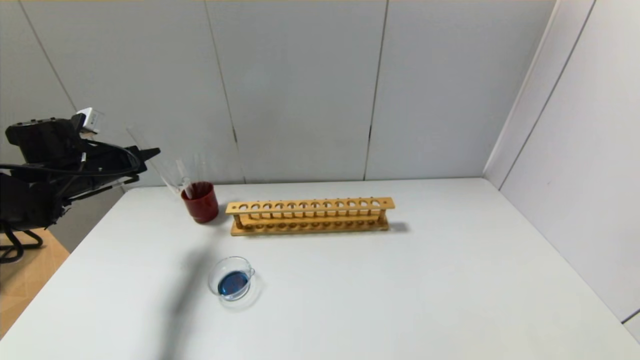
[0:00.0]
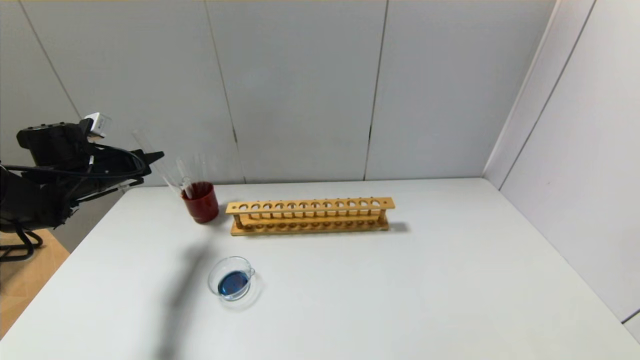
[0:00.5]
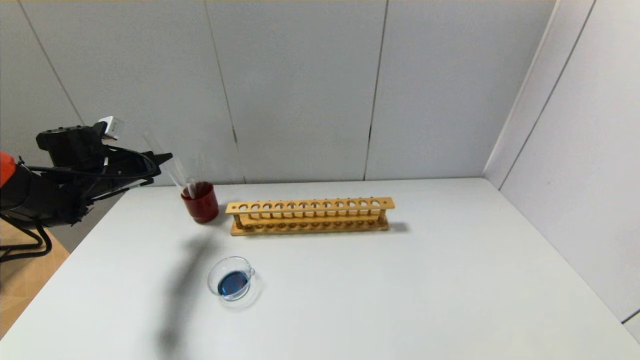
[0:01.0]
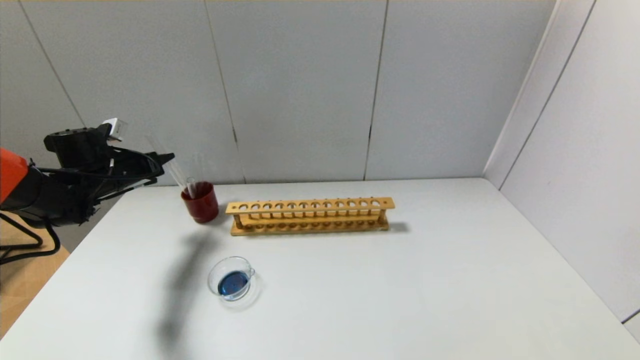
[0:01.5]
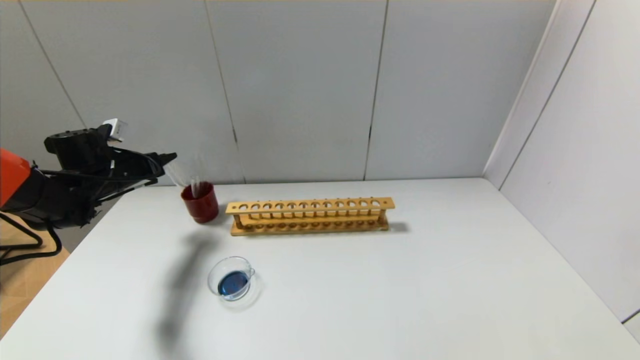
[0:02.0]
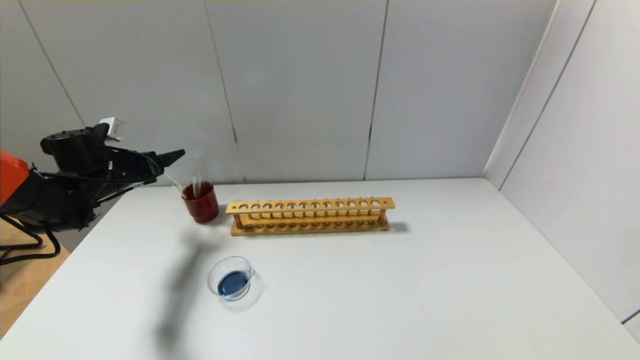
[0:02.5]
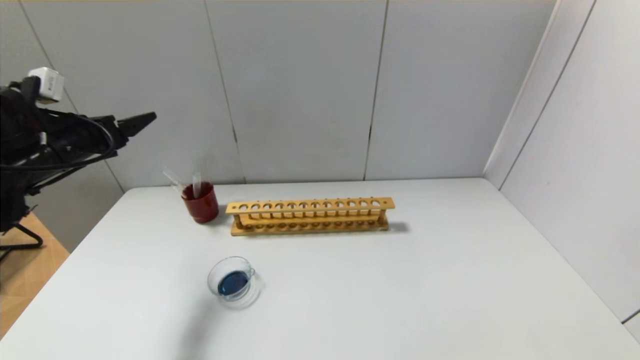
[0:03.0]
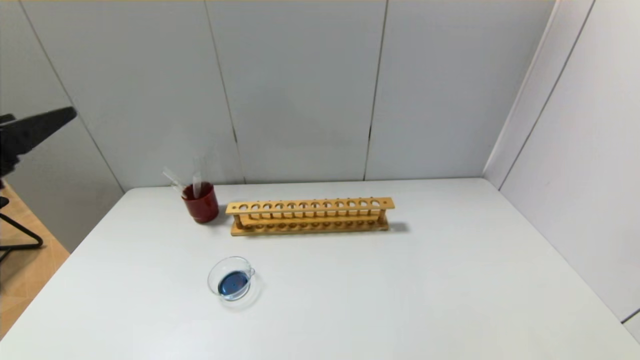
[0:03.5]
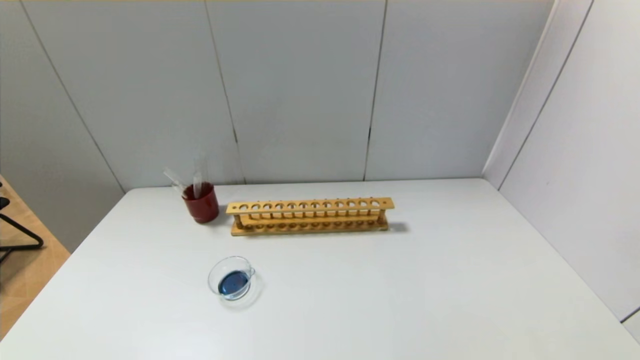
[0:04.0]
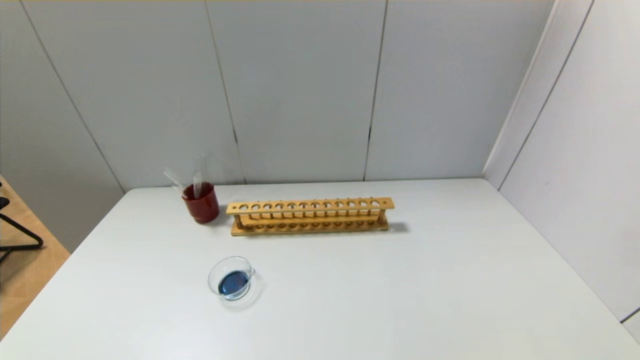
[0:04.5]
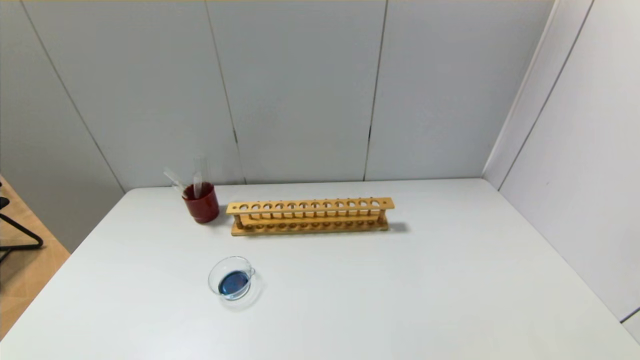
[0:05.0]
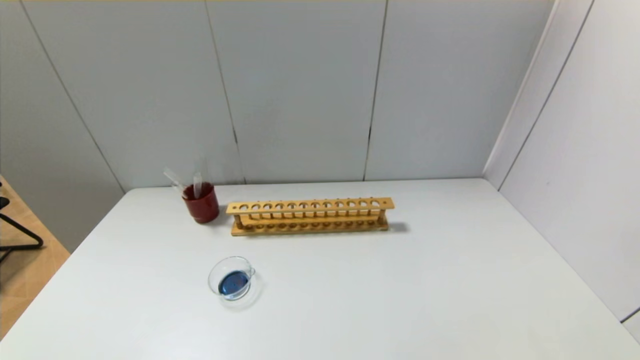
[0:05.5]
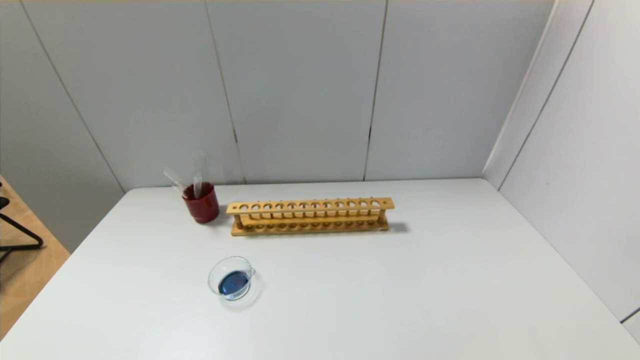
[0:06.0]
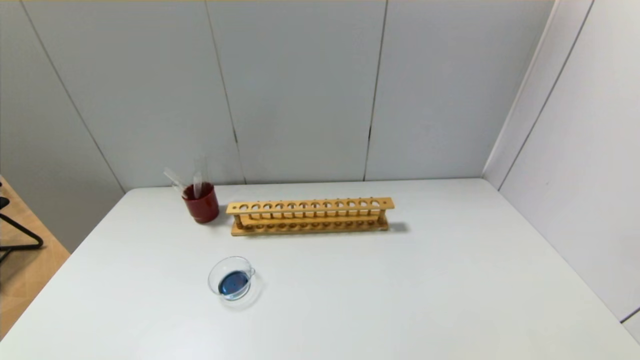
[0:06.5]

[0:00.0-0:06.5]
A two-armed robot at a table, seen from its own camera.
Step, 0.0 to 2.0 s: Place the test tube into the brown cup with the left gripper.
0.0 to 2.0 s: The left gripper moves approximately 5 cm.
2.0 to 4.5 s: The left gripper travels backward by approximately 50 cm, and opens up.

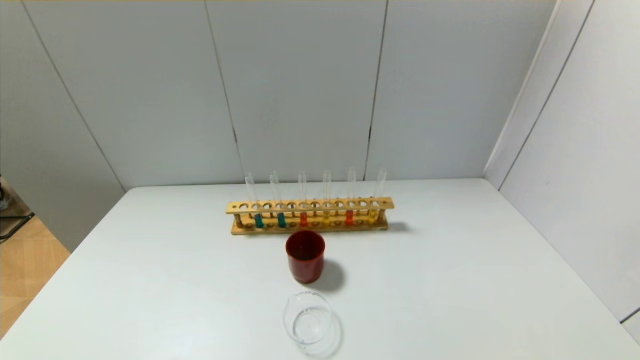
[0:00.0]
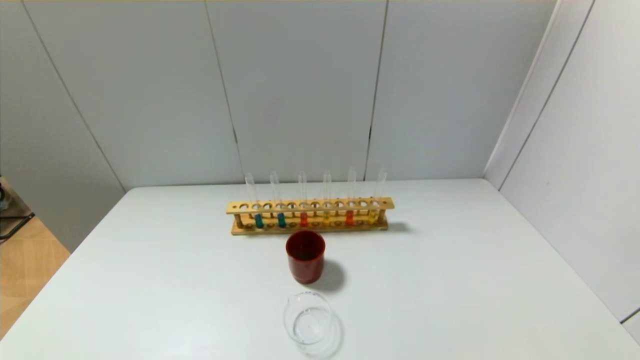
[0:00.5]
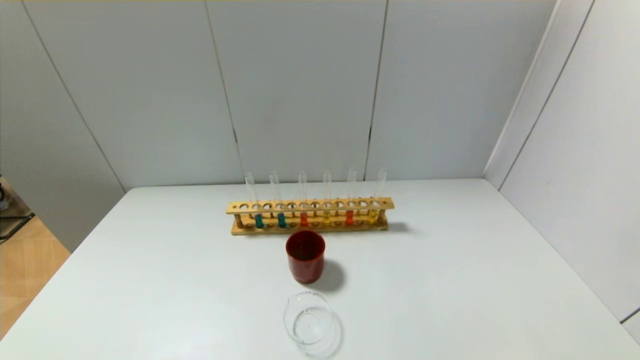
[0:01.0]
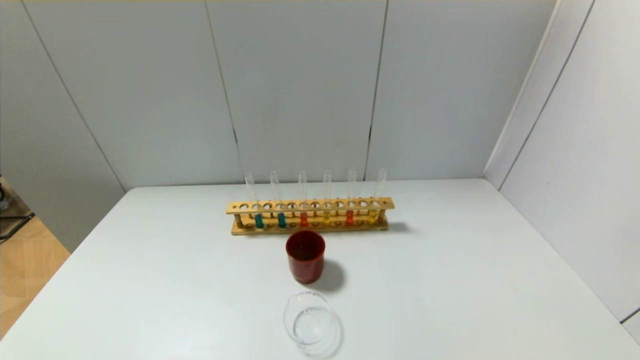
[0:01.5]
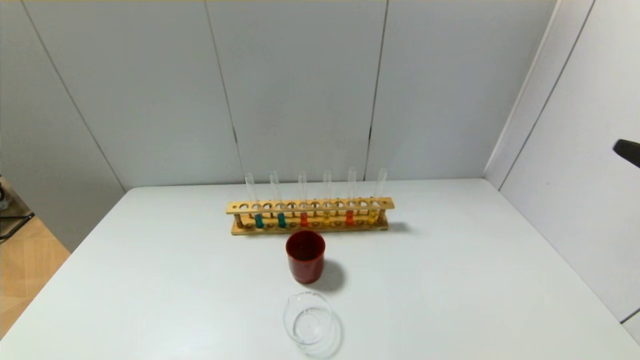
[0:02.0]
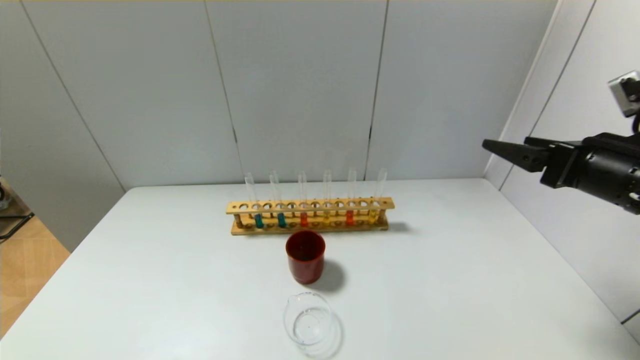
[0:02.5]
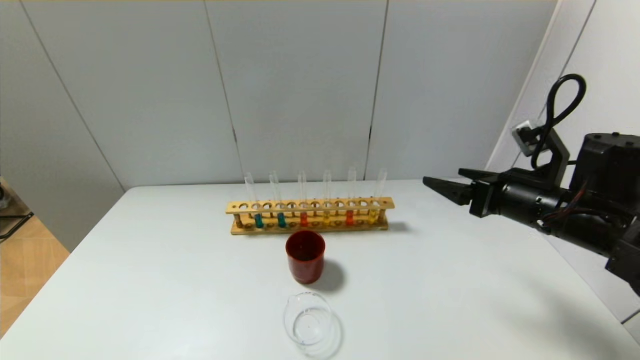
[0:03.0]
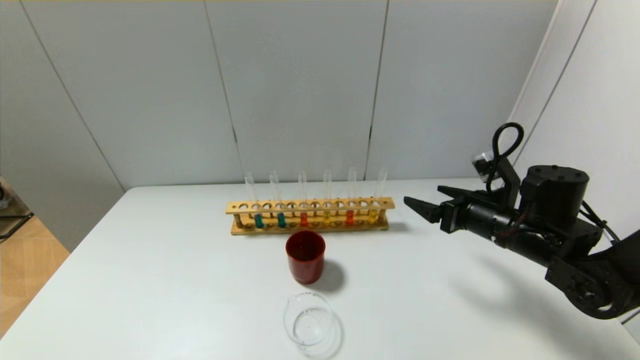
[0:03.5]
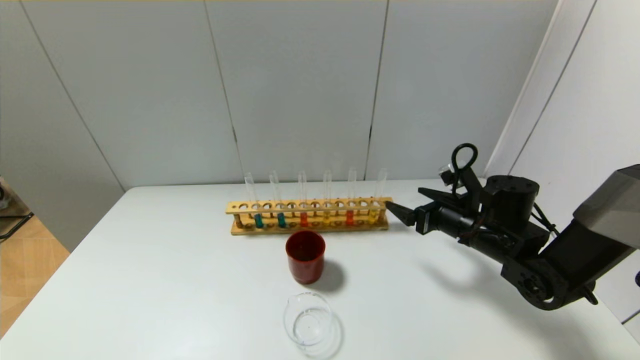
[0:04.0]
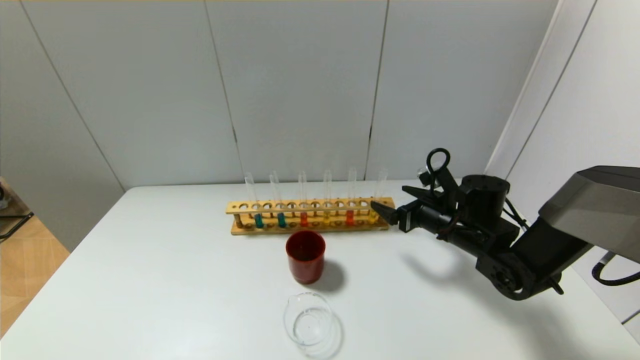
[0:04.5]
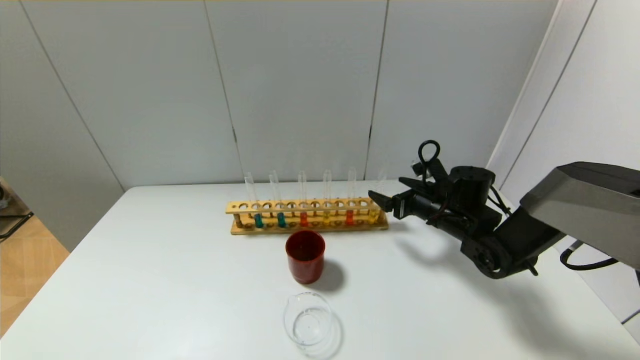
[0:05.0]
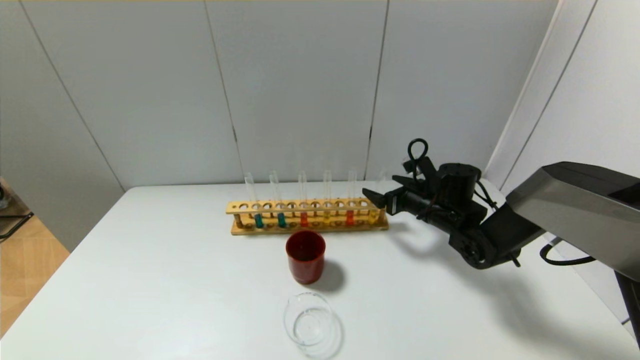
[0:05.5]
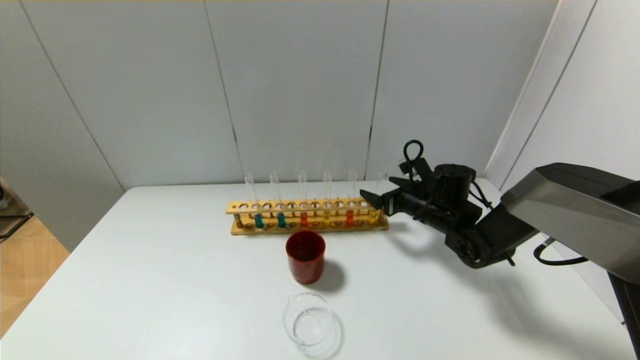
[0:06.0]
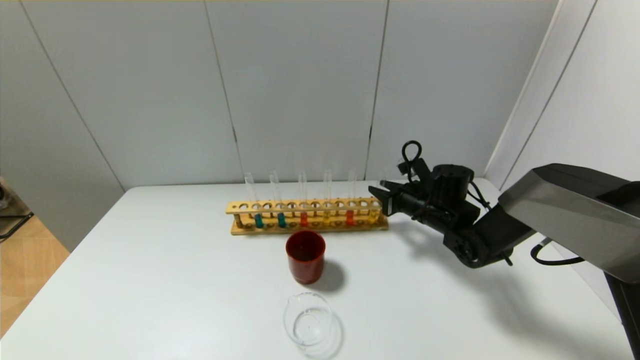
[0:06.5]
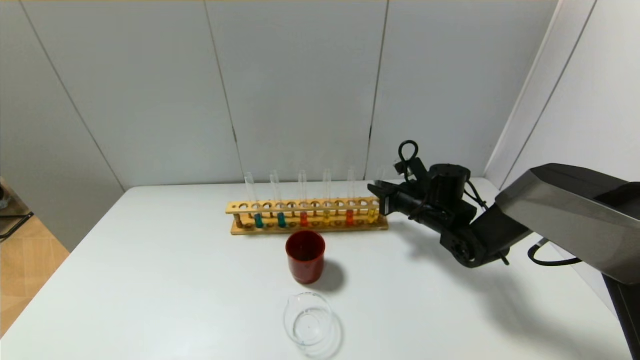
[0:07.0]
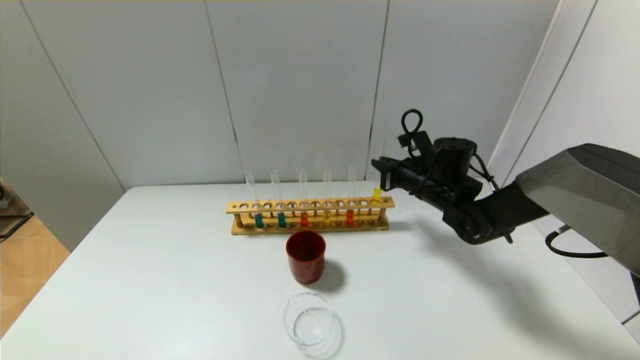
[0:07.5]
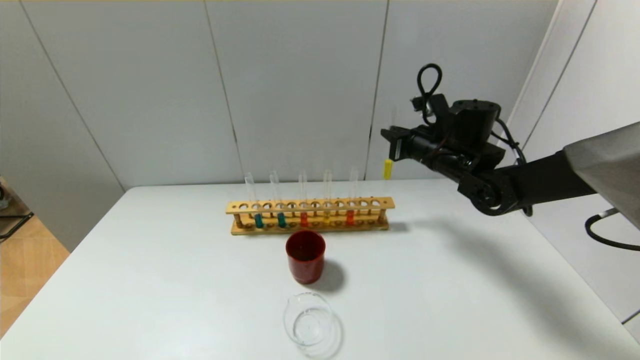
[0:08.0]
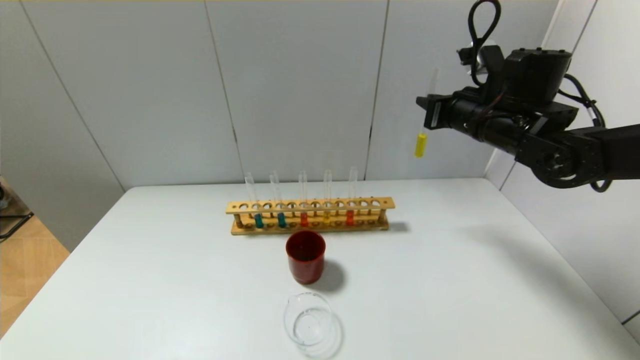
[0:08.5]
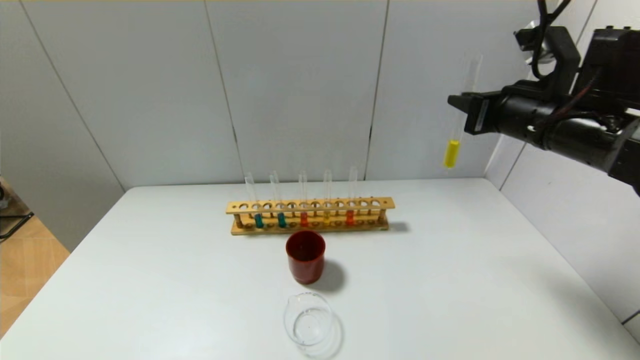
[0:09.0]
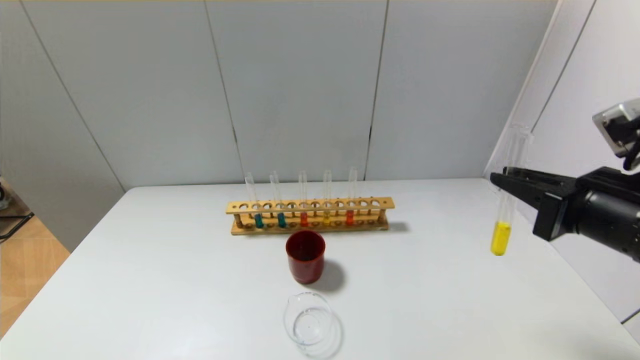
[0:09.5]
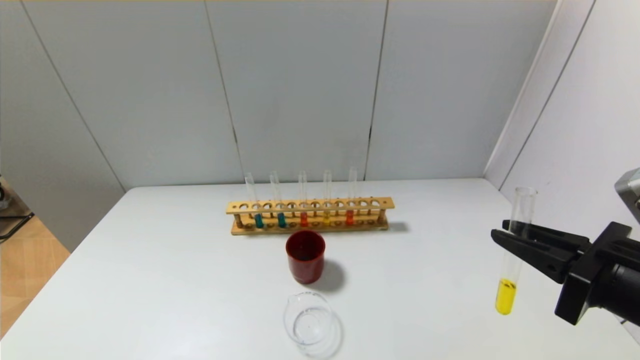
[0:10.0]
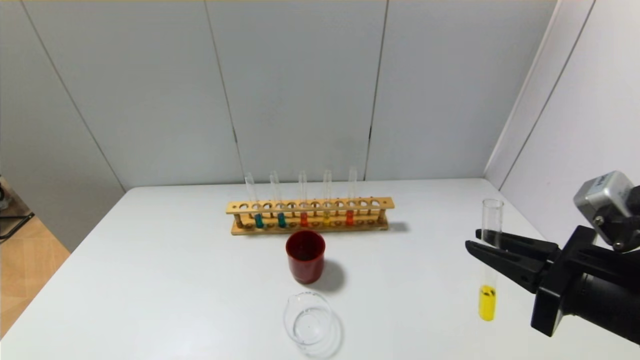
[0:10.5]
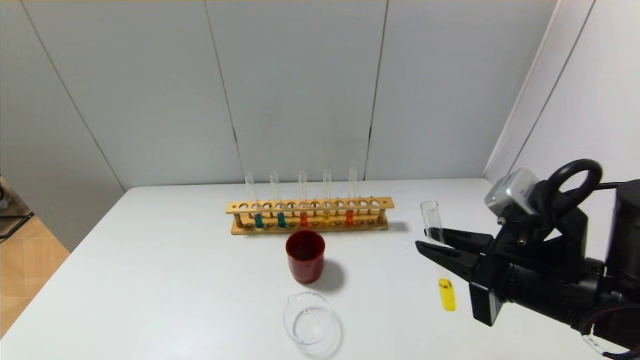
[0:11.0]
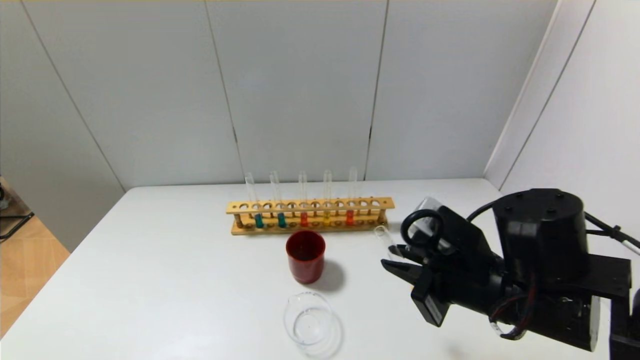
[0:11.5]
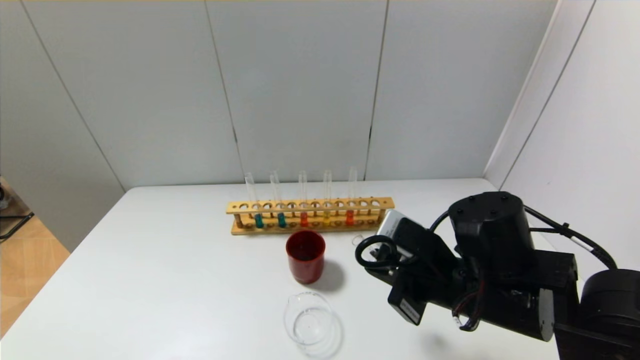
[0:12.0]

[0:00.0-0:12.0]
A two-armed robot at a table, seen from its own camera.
Step, 0.0 to 6.5 s: Grasp the yellow reagent with the right gripper.
2.0 to 4.0 s: The right gripper heads forward, downward and to the left, covering some 30 cm.
4.0 to 6.0 s: The right gripper goes roughly 10 cm forward.
6.0 to 8.0 s: The right gripper shifts about 10 cm upward, and closes.
8.0 to 10.0 s: The right gripper moves backward, roughly 30 cm.
10.0 to 12.0 s: The right gripper travels to the left, forward and downward by about 15 cm.

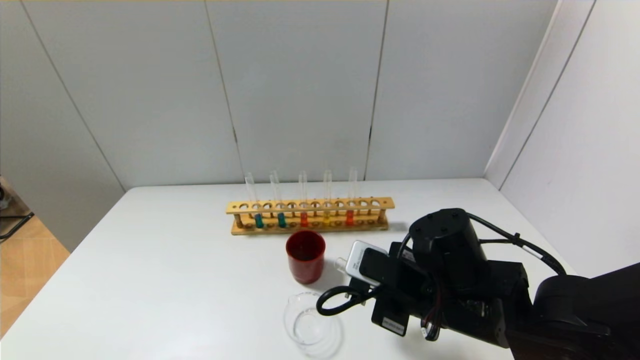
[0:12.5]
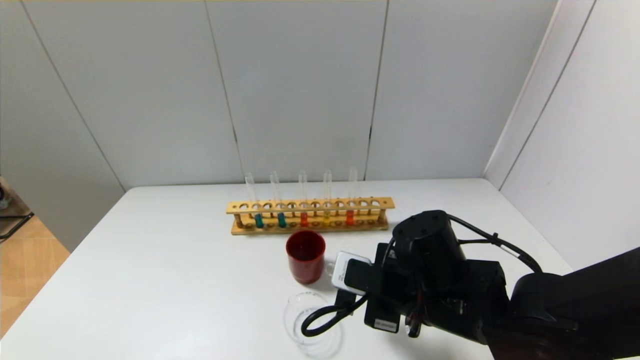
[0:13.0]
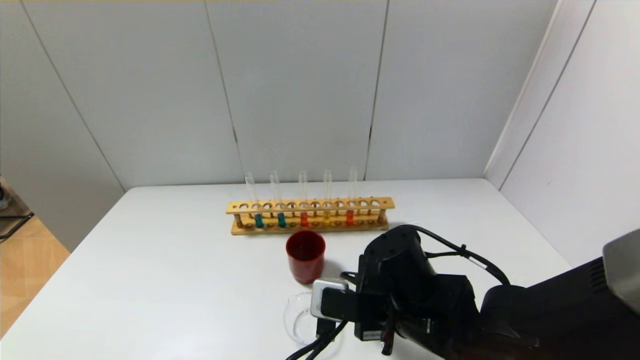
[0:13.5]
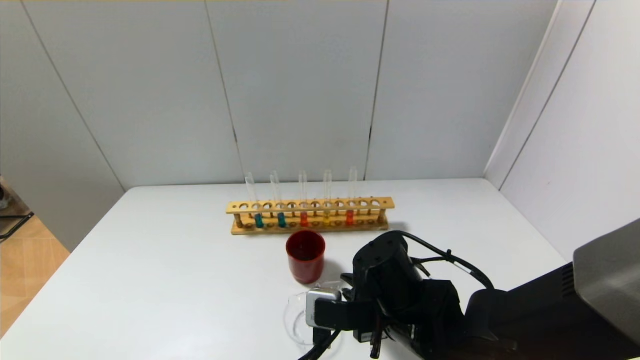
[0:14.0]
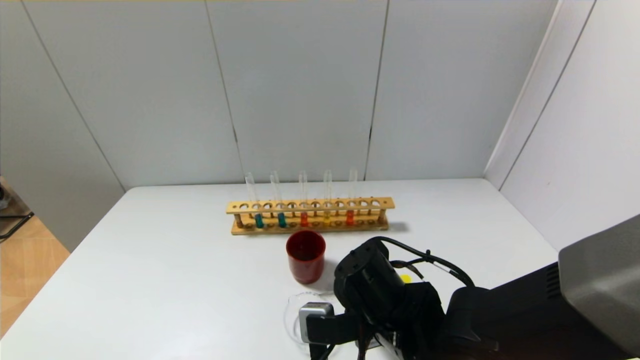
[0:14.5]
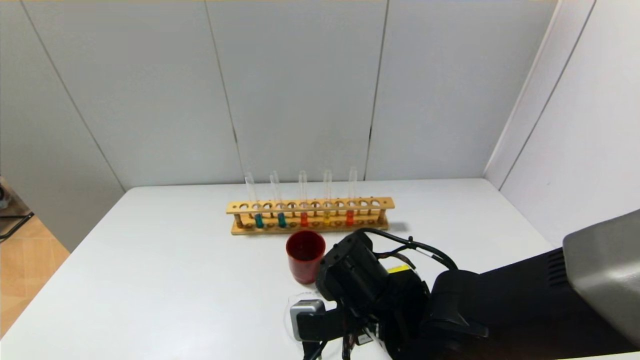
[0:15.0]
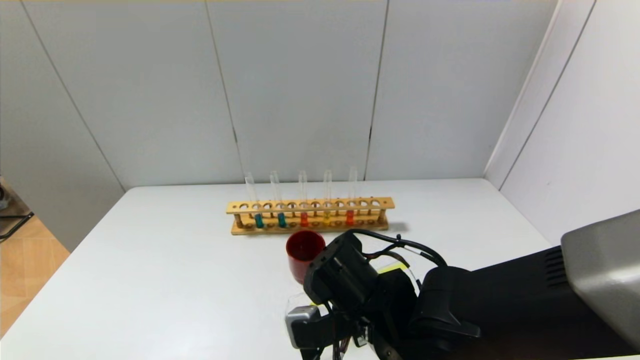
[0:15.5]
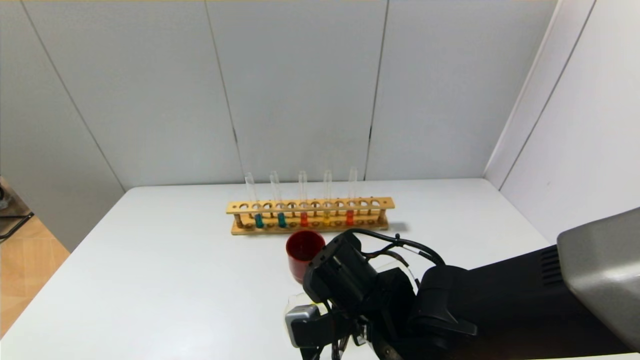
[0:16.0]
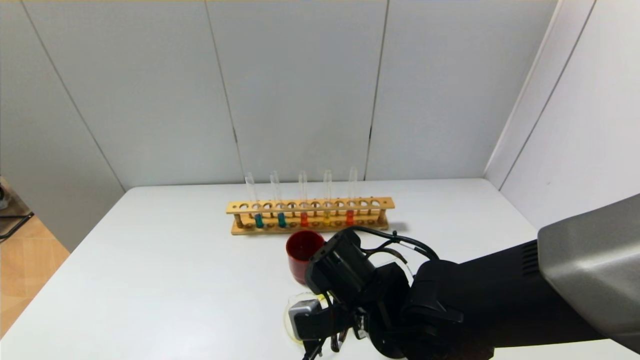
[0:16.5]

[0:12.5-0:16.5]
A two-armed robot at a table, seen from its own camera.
12.5 to 14.5 s: The right gripper travels to the left by approximately 5 cm.
14.5 to 16.5 s: There are only small adjustments of the grippers.
